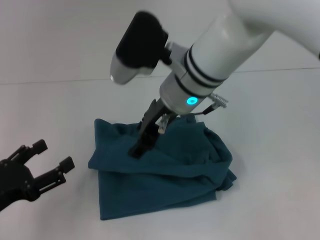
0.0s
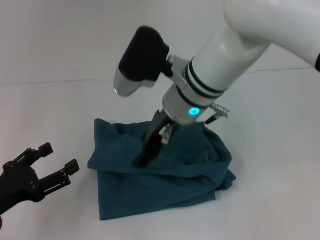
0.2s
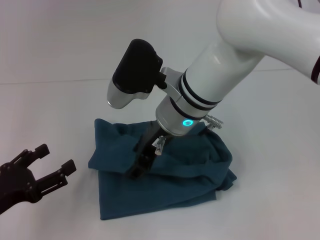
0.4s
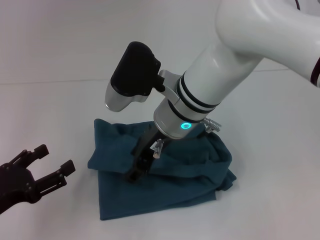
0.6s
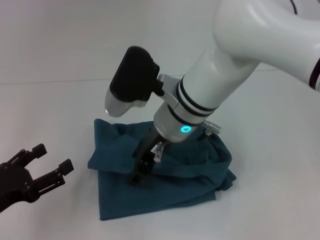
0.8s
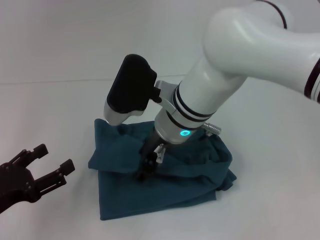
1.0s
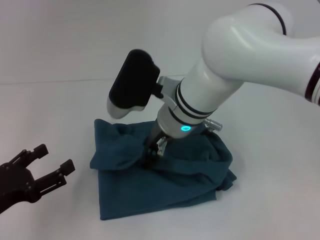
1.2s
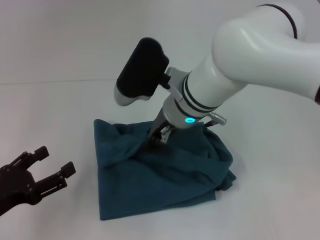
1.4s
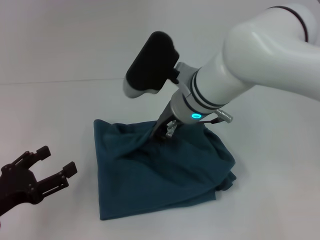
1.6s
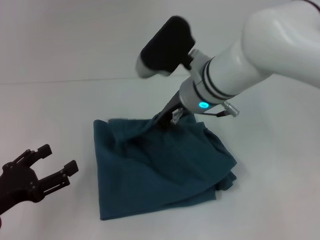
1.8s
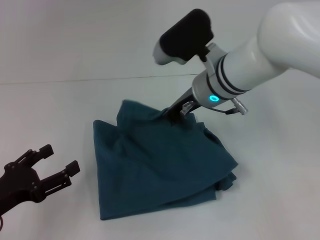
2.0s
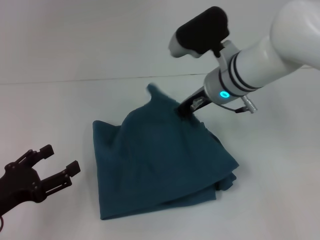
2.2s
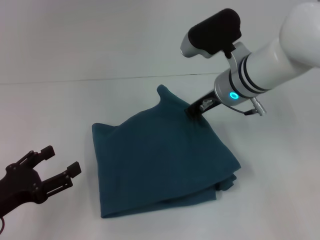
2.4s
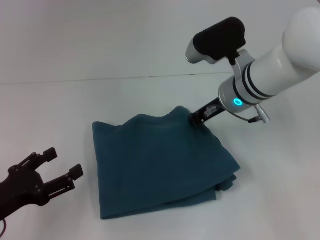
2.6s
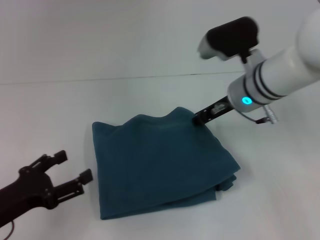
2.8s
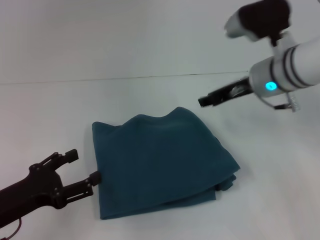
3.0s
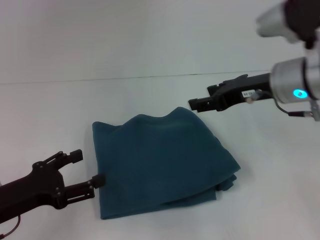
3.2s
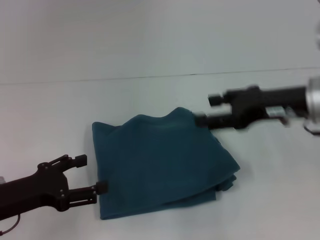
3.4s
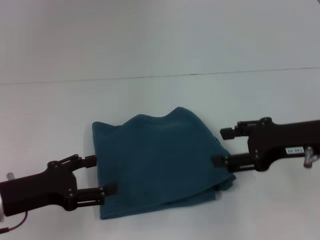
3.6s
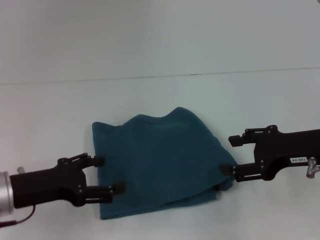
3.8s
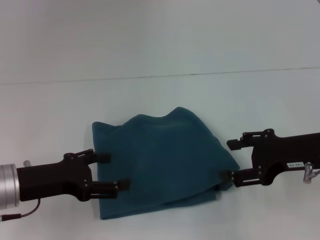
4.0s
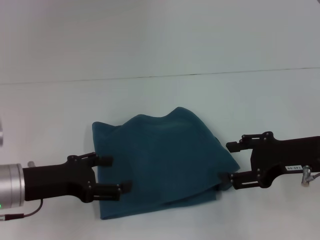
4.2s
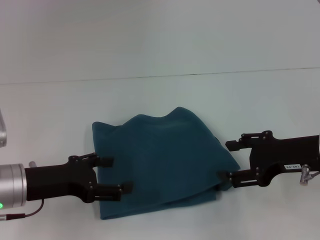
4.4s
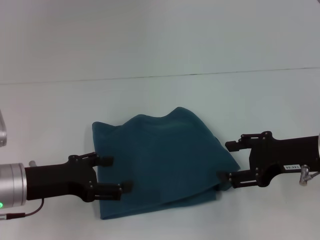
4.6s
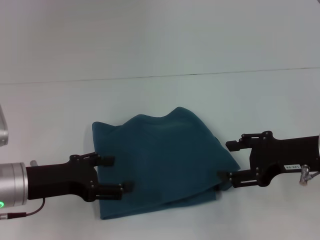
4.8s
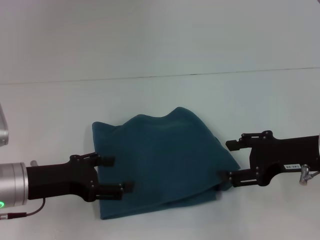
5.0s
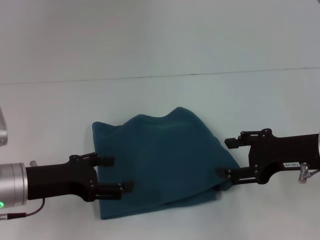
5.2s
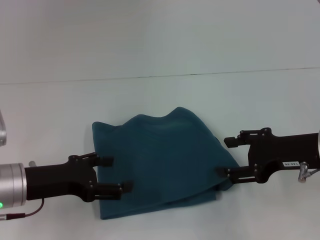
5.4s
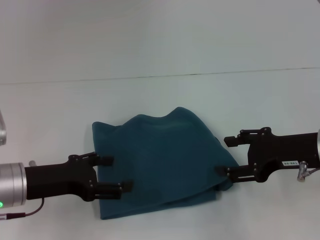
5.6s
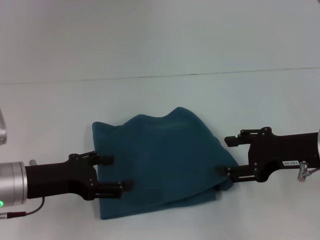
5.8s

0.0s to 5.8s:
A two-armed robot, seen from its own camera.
0.0s to 1.4s: The grippers make only small movements.
1.4s to 2.8s: The right gripper is displaced to the right by approximately 10 cm.
2.8s to 4.4s: The right gripper heads backward and to the right, covering roughly 15 cm, and opens up. The left gripper shifts roughly 5 cm forward.
4.4s to 5.8s: Both grippers stay about where they are.

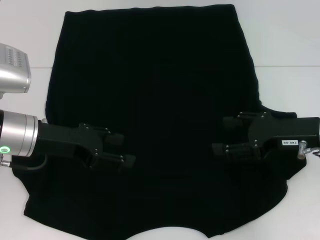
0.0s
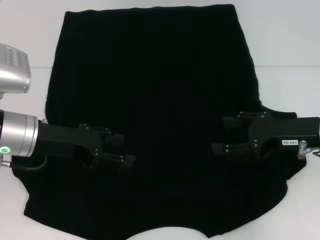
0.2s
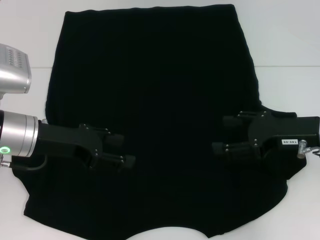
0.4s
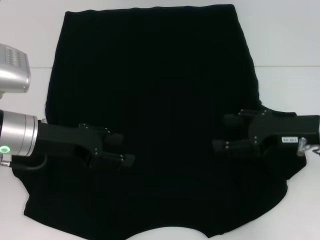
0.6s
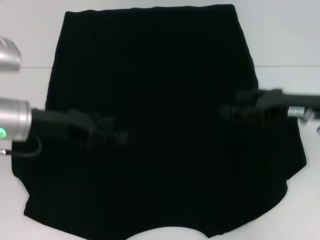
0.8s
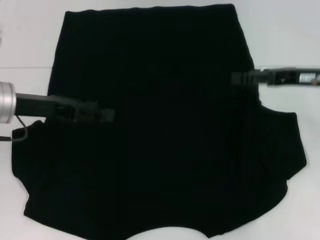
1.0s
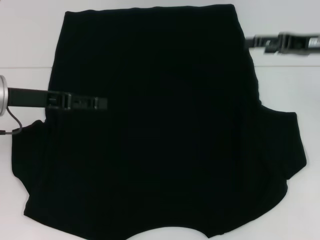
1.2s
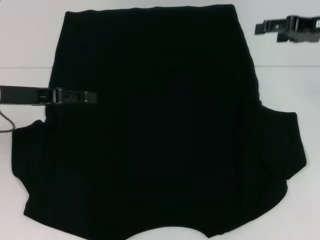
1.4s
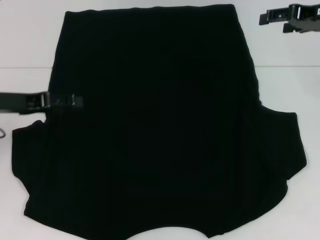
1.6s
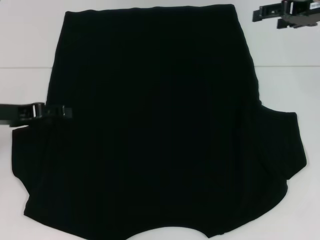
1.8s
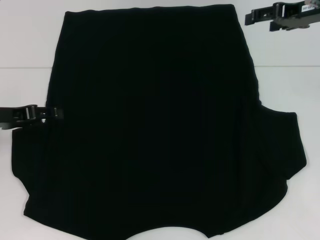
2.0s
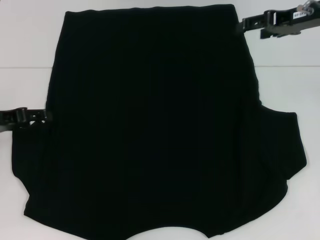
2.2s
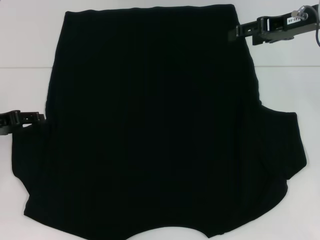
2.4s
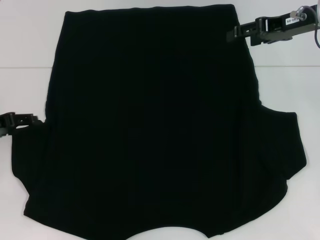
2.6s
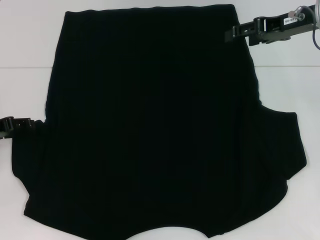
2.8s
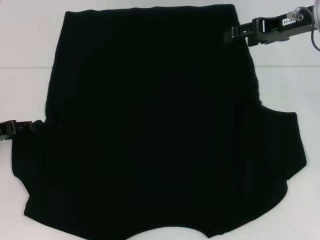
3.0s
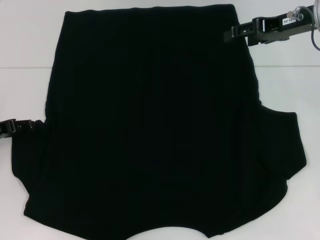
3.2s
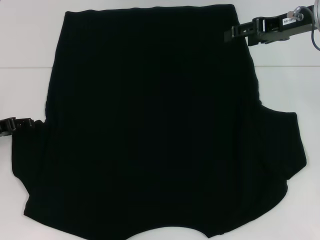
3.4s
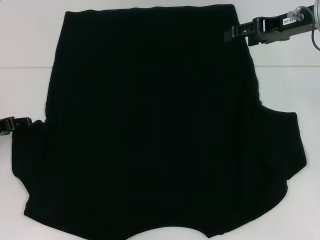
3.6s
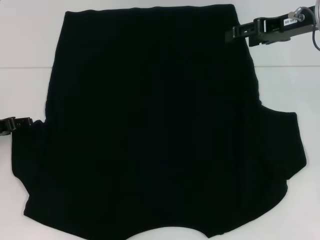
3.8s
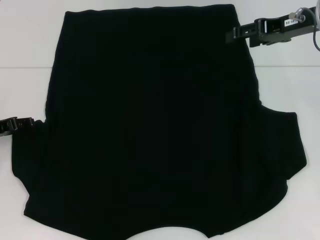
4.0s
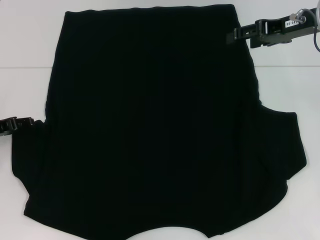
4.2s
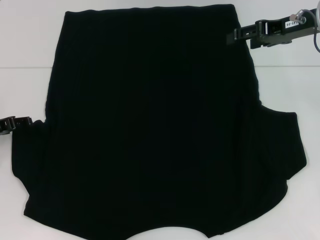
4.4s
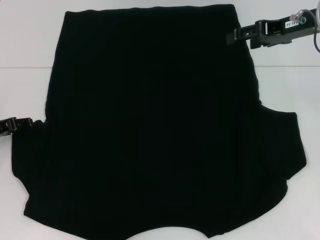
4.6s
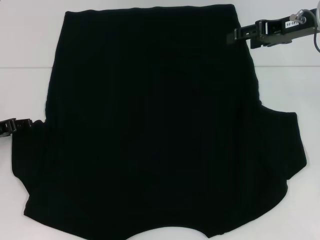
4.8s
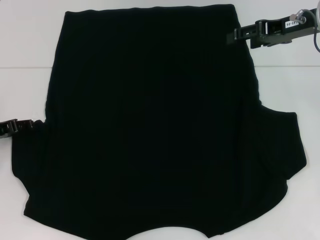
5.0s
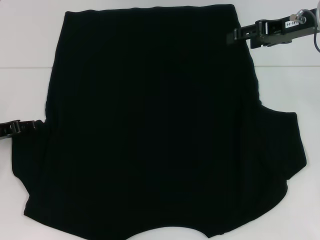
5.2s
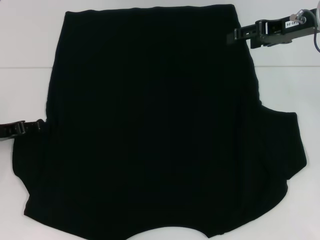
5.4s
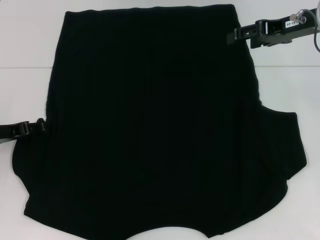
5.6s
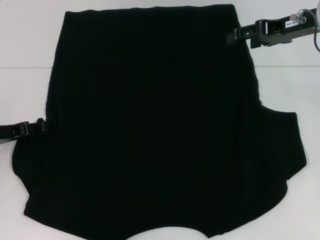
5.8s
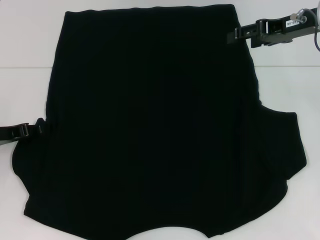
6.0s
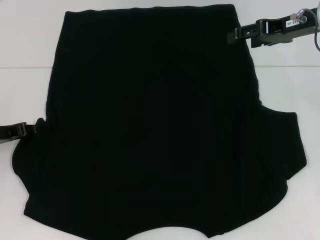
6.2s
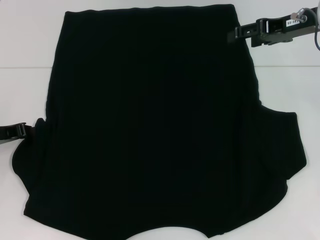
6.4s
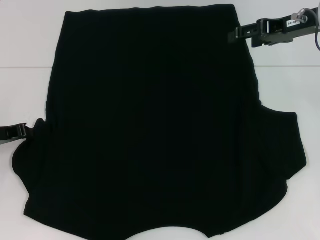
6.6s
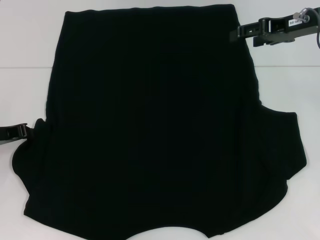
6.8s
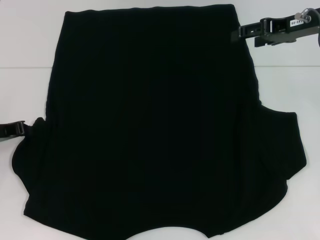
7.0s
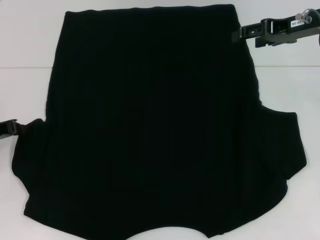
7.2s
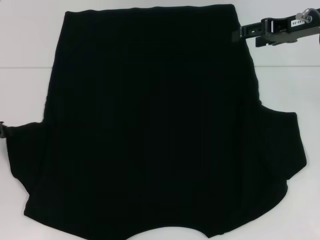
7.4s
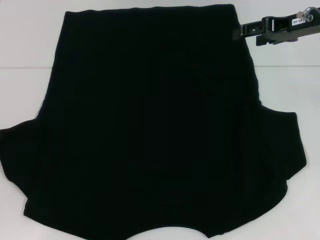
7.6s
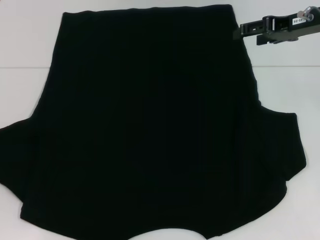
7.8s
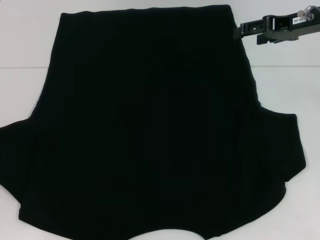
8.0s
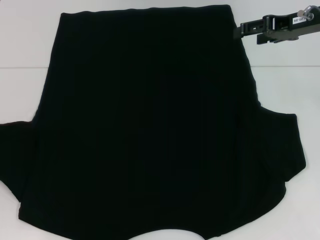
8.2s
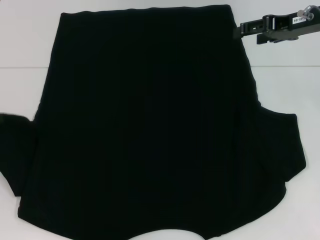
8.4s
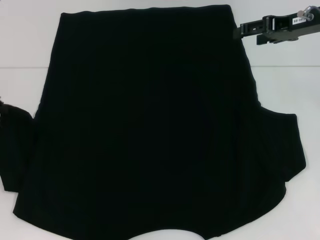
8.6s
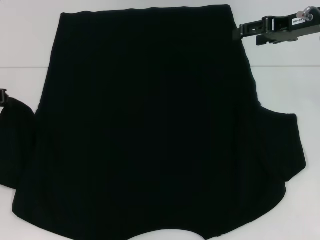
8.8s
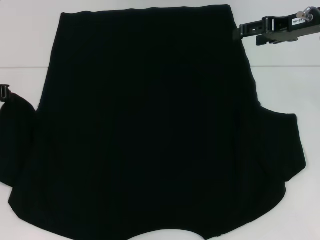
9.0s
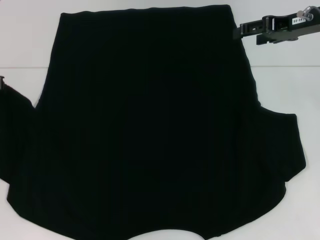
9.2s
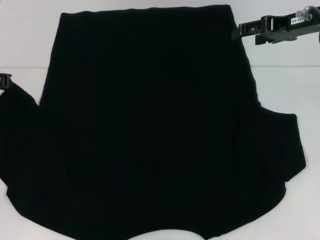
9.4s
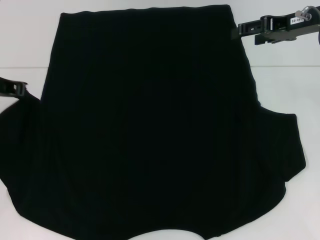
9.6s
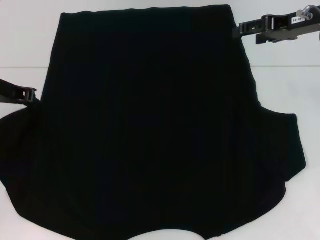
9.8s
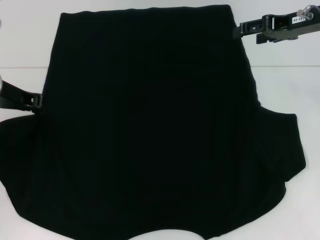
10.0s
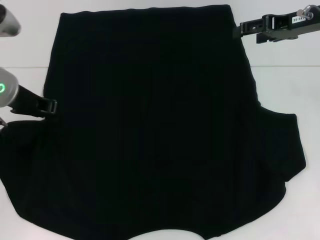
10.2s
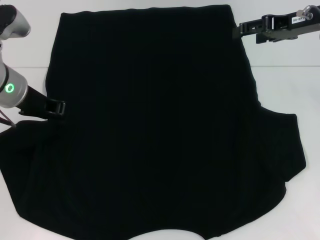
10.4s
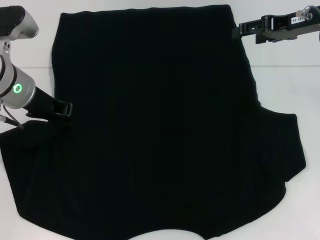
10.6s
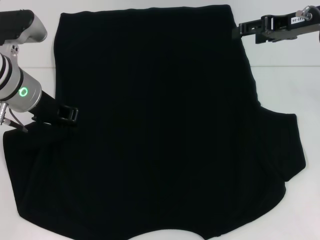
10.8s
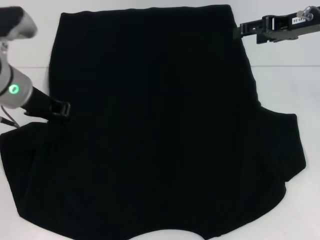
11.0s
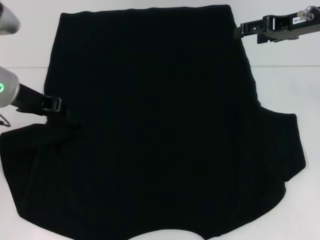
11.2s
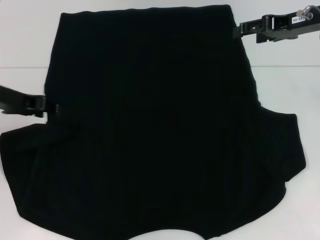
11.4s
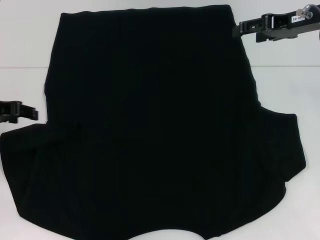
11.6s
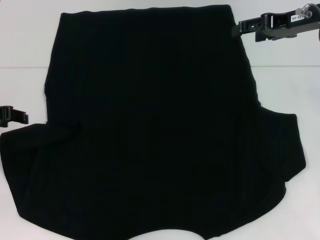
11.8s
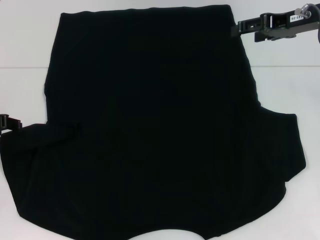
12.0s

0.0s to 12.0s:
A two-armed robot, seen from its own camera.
0.0s to 1.6s: The right gripper travels forward and upward by roughly 15 cm, while the left gripper is displaced to the left by some 5 cm.
1.6s to 3.0s: The right gripper travels to the left by some 5 cm. Meanwhile the left gripper travels downward by about 5 cm.
3.0s to 6.0s: The grippers stay close to where they were, moving slightly.
6.0s to 7.6s: The left gripper moves roughly 5 cm, and closes up.
7.6s to 9.0s: The left gripper moves upward and forward, about 10 cm.
9.0s to 10.4s: The left gripper shifts some 10 cm to the right.
10.4s to 12.0s: The left gripper shifts roughly 10 cm to the left, and opens up.

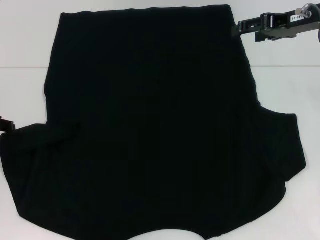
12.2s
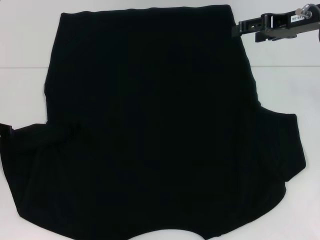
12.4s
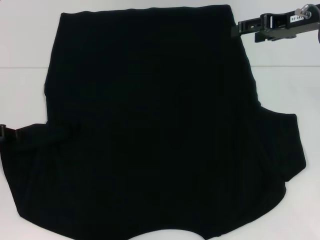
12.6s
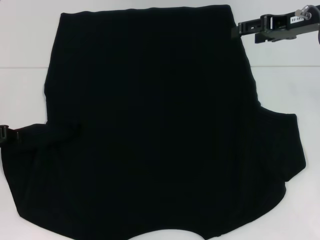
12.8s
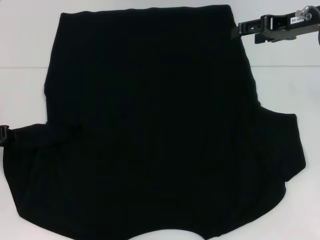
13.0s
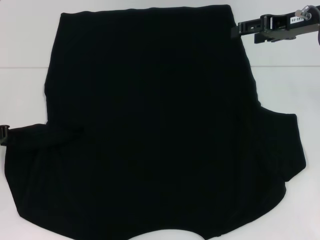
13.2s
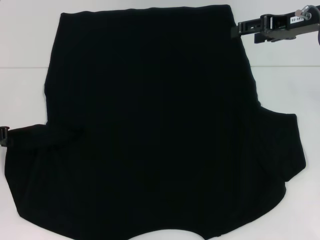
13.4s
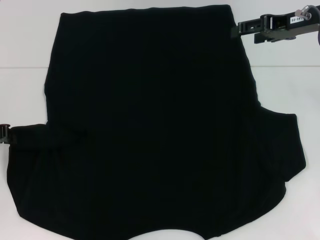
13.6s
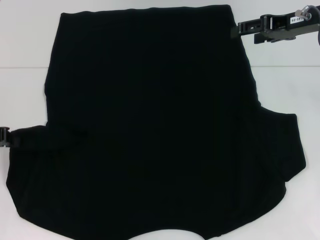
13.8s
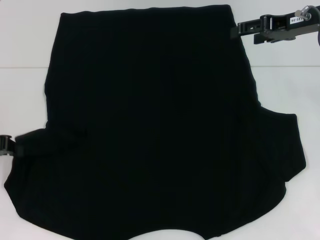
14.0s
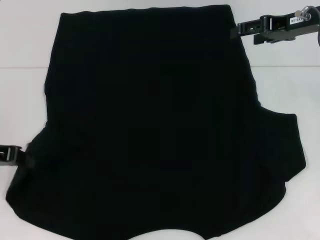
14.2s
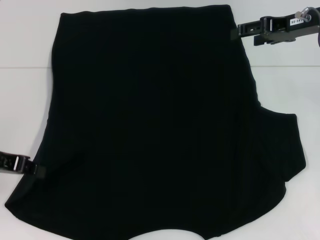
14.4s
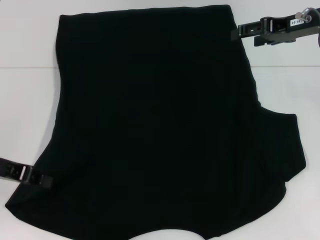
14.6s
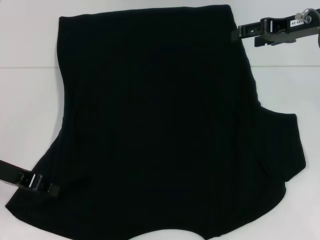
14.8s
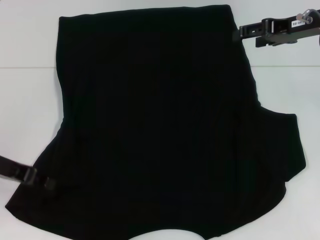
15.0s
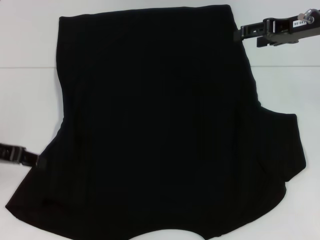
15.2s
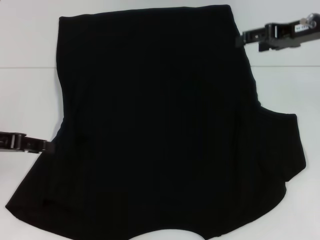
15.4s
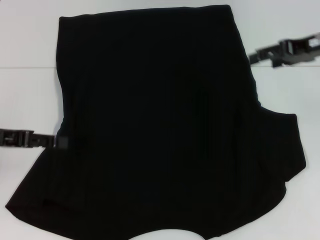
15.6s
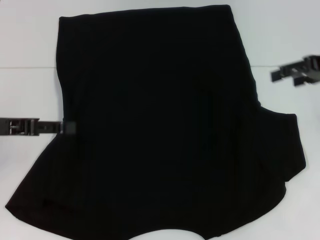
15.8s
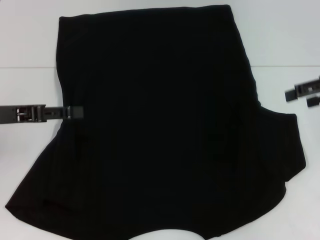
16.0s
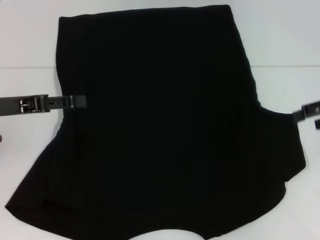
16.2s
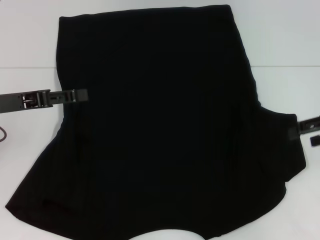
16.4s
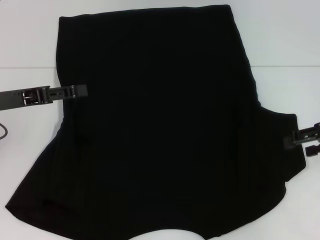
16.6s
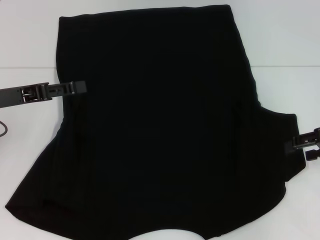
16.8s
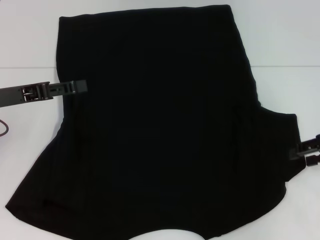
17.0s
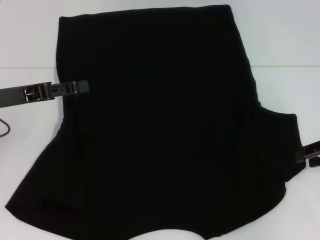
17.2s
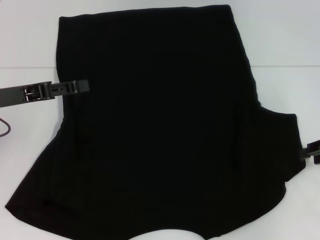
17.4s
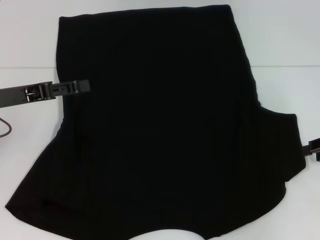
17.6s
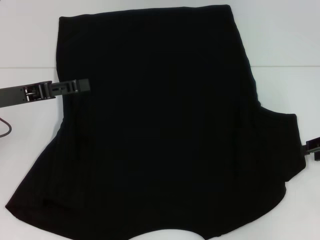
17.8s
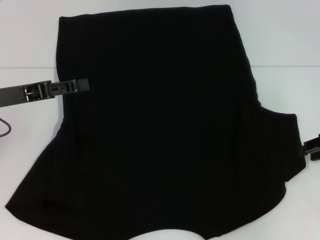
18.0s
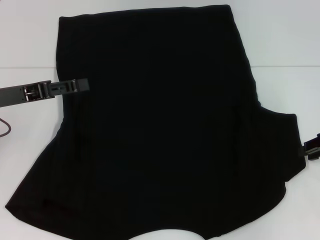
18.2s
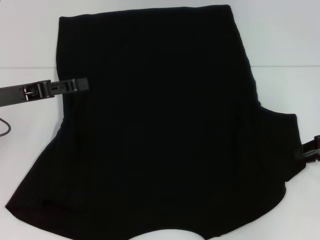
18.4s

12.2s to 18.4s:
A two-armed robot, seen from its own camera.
Step, 12.2s to 15.0s: Fold the bottom left sleeve with your left hand.
12.2s to 13.8s: The left gripper closes its fingers.
13.8s to 15.4s: The left gripper opens.
15.4s to 16.8s: The right gripper travels backward, downward and to the right by approximately 15 cm.
16.8s to 18.4s: The right gripper closes up.
